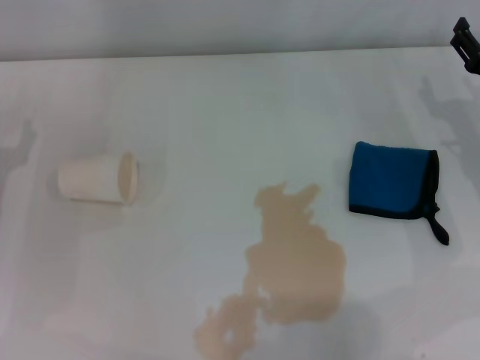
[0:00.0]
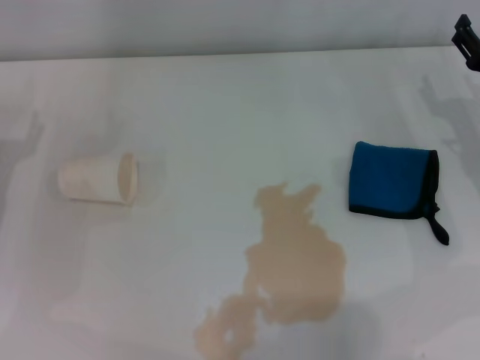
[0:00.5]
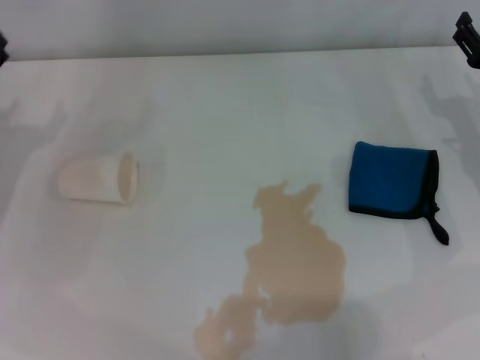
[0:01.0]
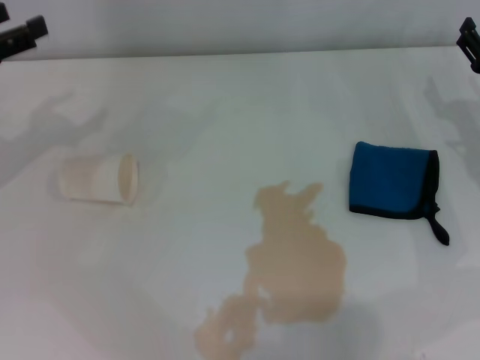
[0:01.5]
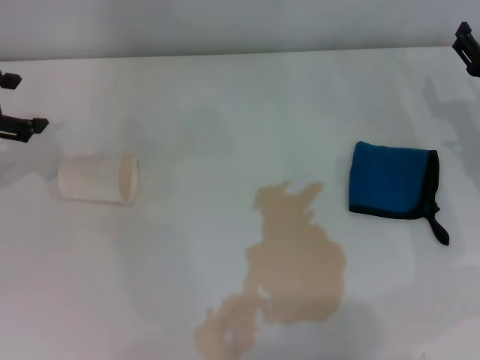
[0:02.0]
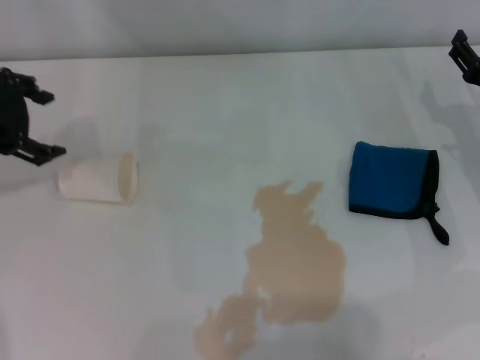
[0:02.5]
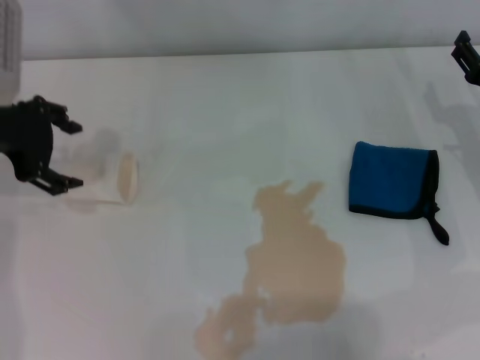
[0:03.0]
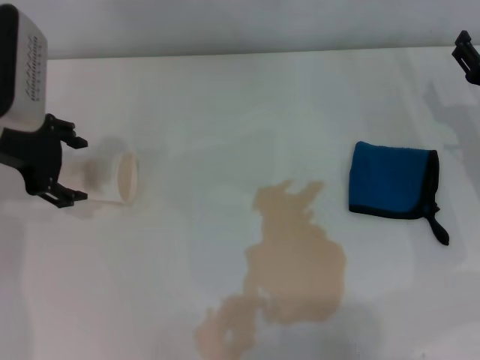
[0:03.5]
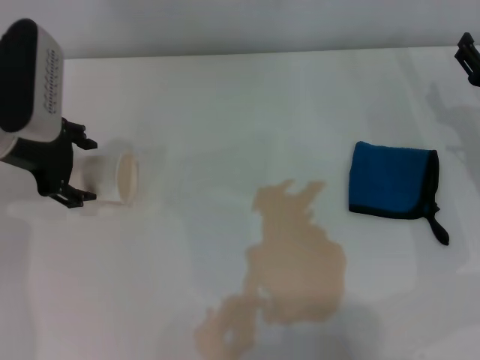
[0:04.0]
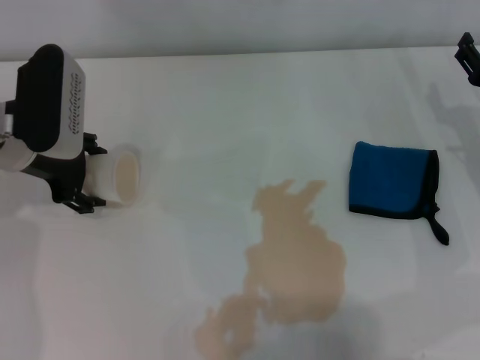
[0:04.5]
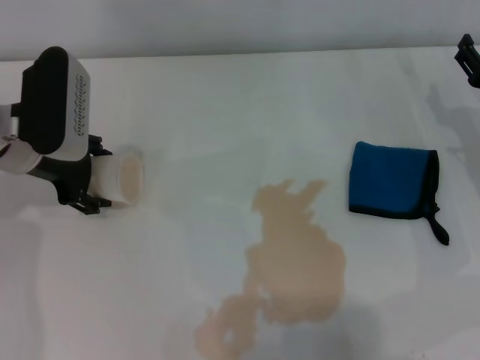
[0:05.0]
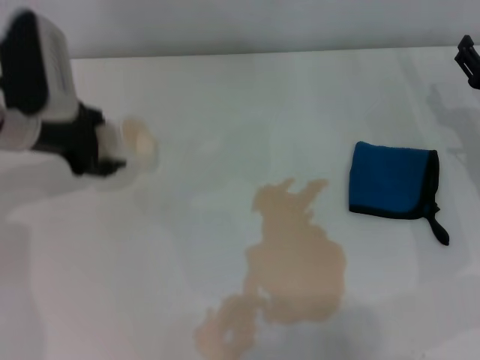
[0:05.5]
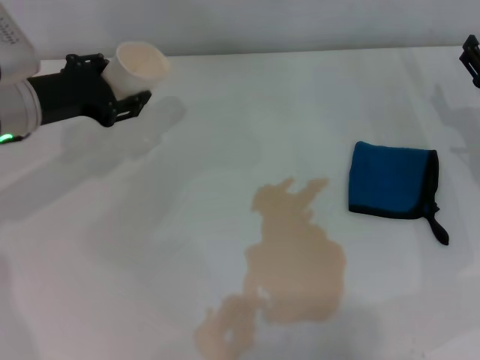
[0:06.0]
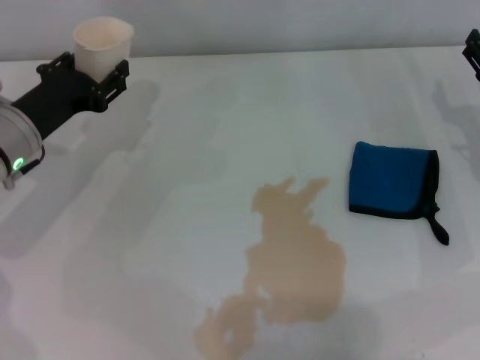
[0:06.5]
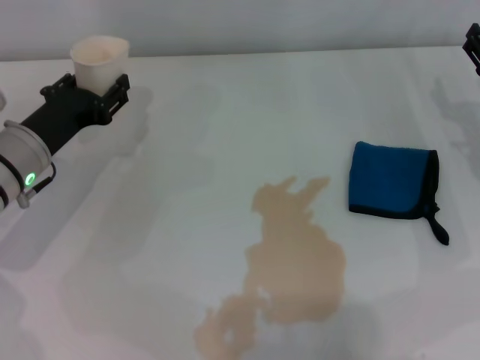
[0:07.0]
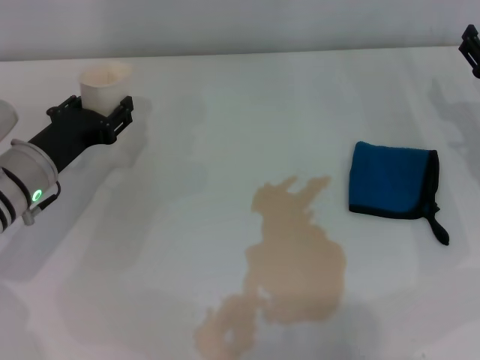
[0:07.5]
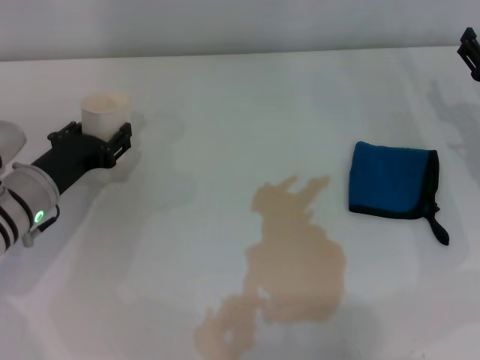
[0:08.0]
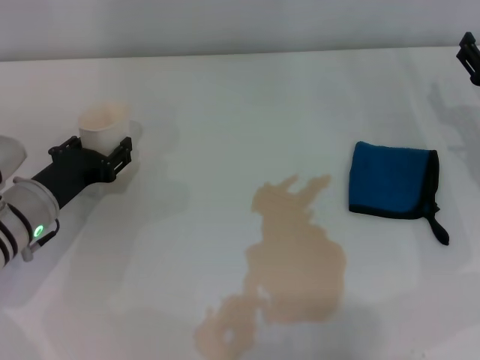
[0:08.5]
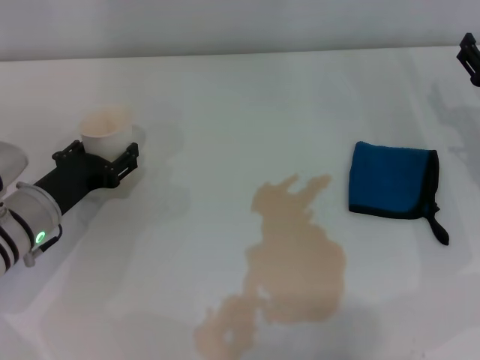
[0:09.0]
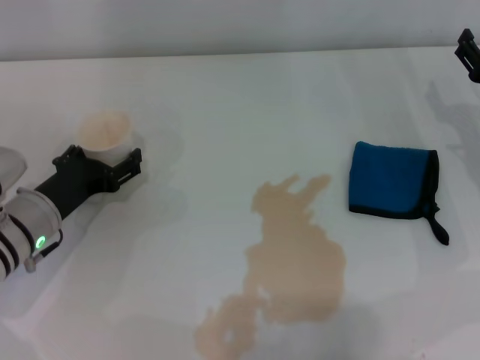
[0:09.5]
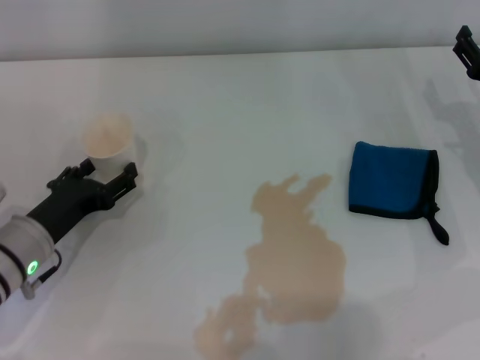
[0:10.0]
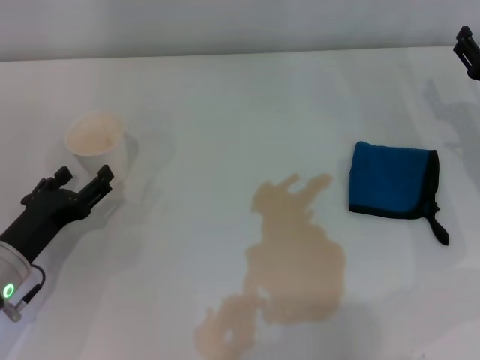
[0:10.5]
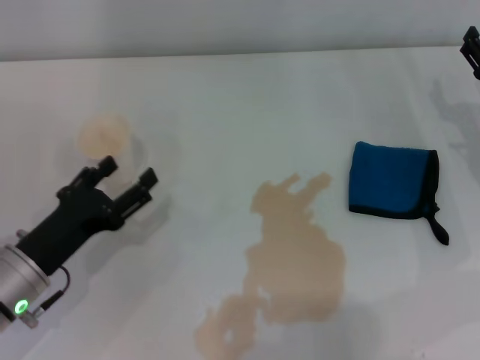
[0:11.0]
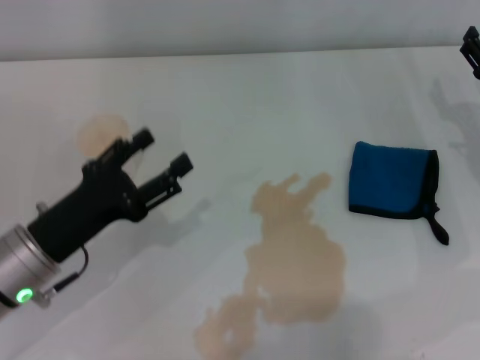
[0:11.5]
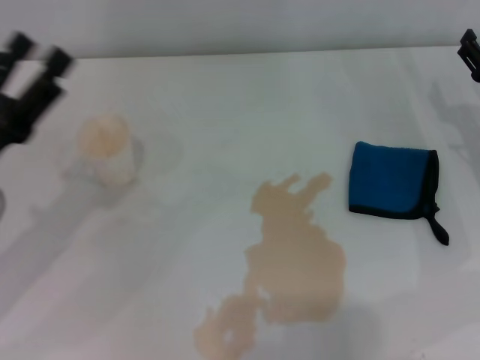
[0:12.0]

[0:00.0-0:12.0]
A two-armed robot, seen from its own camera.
Step, 0:00.0 to 0:05.0: Grasp the paper cup with the left gripper.
Step, 0:05.5 to 0:09.5: Stand the paper cup upright with the left gripper.
0:00.0 to 0:02.0: The left gripper travels upward and forward by about 15 cm.
0:02.0 to 0:04.0: The left gripper travels to the right by roughly 10 cm.
0:04.0 to 0:06.0: The left gripper closes up.
0:06.0 to 0:08.0: The left gripper is displaced downward and backward by some 10 cm.
0:08.0 to 0:10.0: The left gripper shifts by some 5 cm, and opens up.
0:10.0 to 0:12.0: The left gripper is displaced upward by about 10 cm.

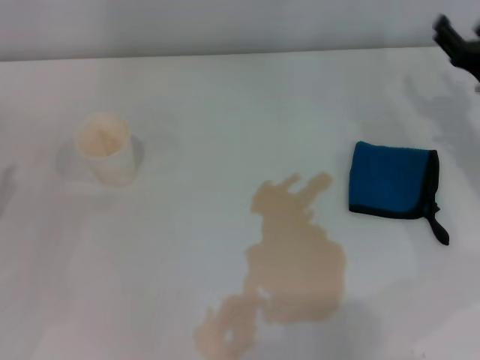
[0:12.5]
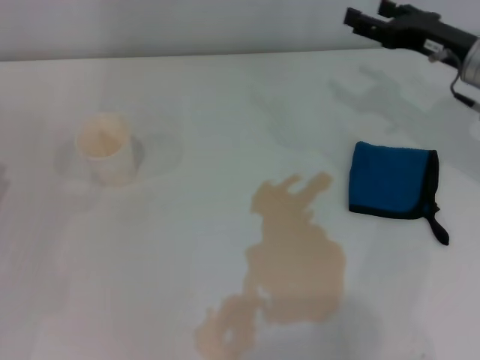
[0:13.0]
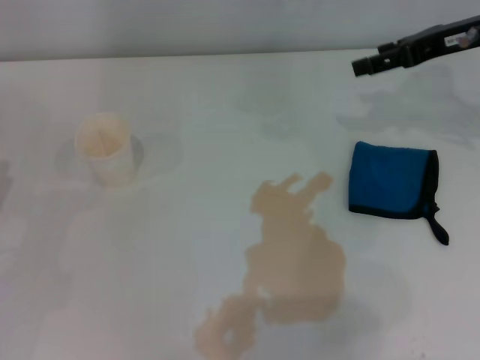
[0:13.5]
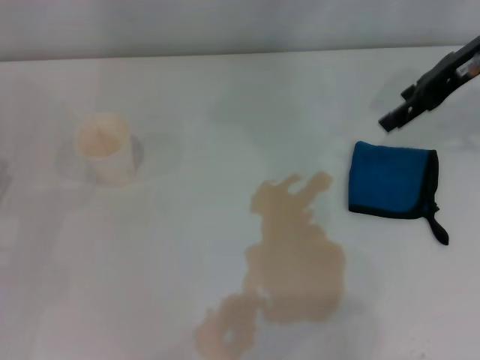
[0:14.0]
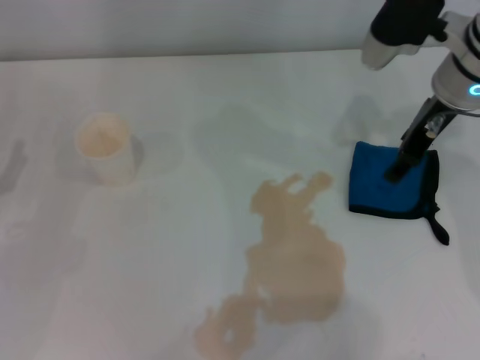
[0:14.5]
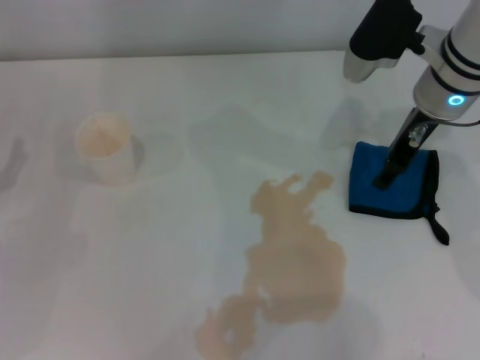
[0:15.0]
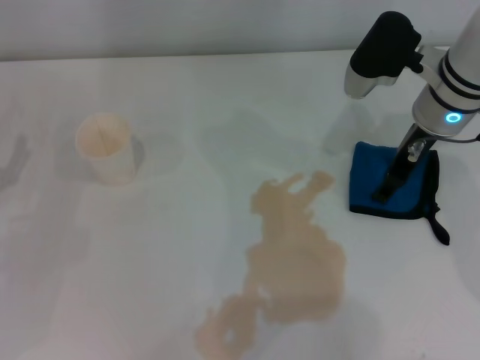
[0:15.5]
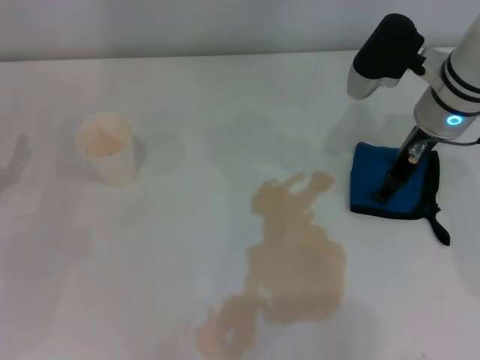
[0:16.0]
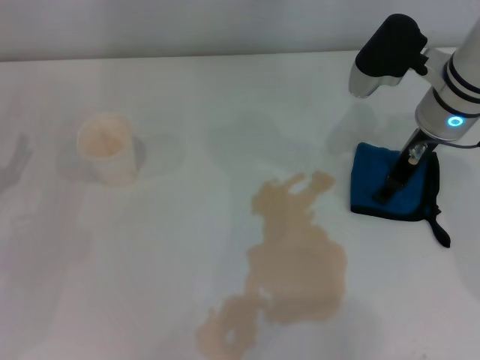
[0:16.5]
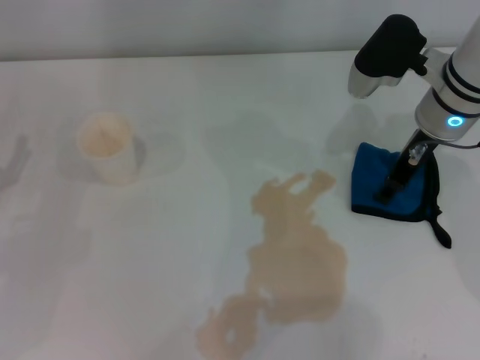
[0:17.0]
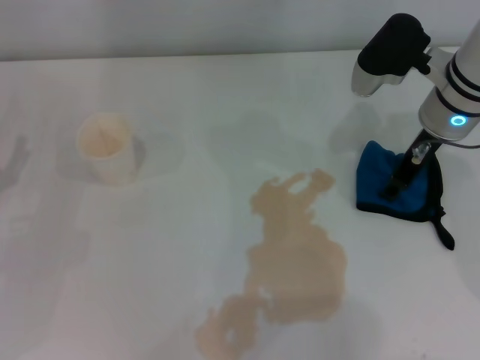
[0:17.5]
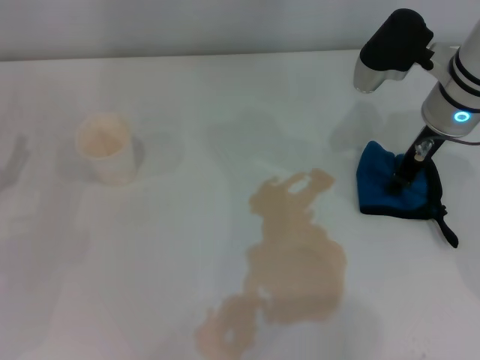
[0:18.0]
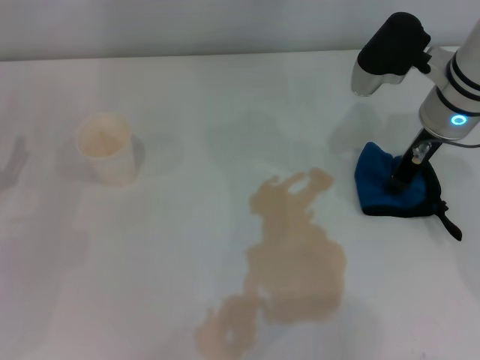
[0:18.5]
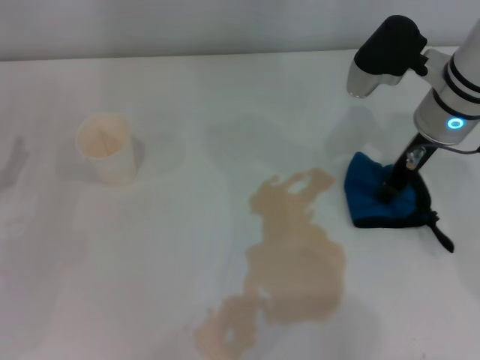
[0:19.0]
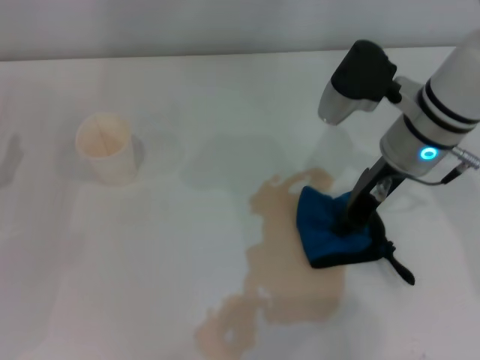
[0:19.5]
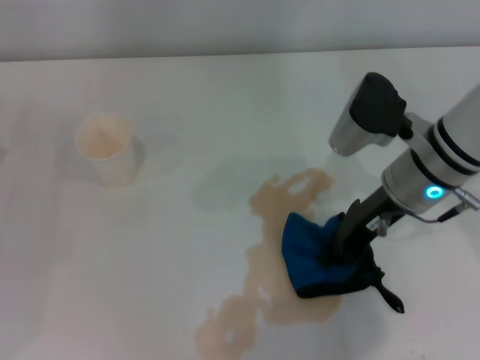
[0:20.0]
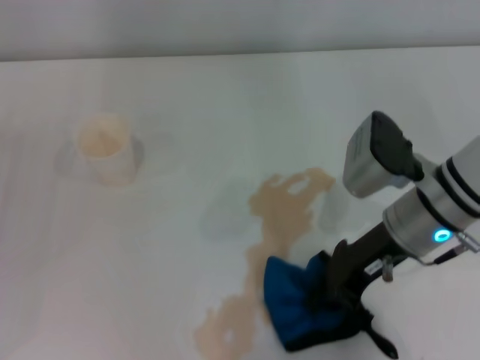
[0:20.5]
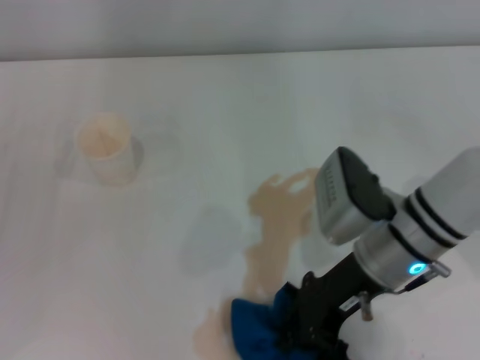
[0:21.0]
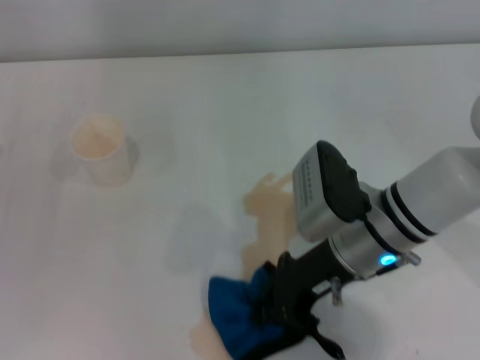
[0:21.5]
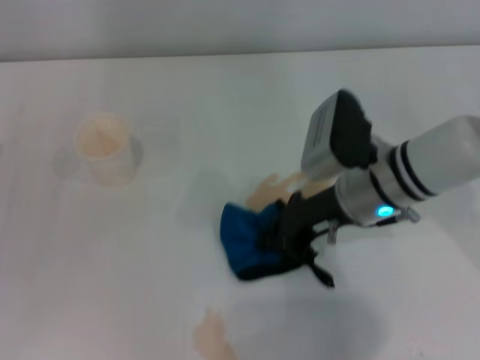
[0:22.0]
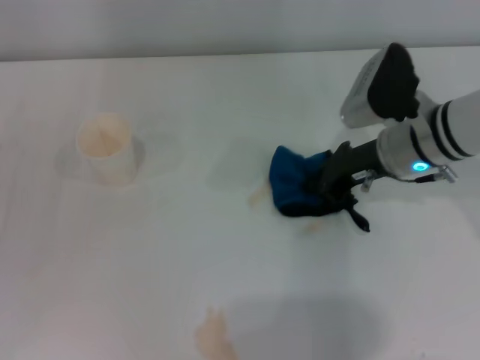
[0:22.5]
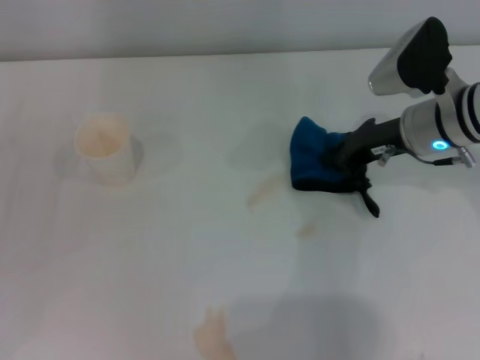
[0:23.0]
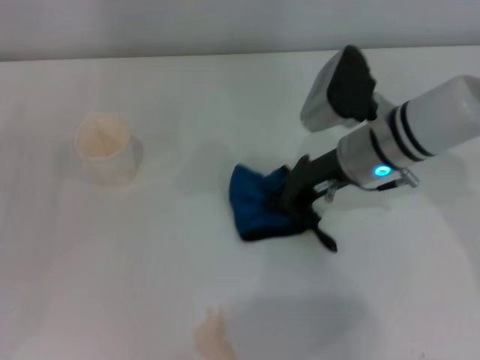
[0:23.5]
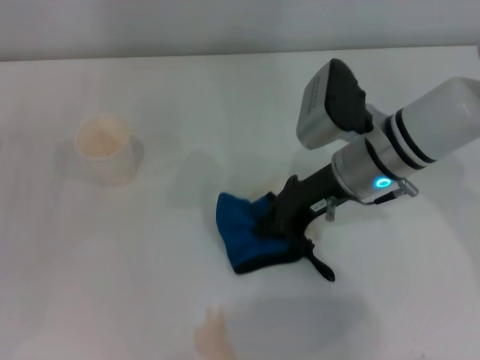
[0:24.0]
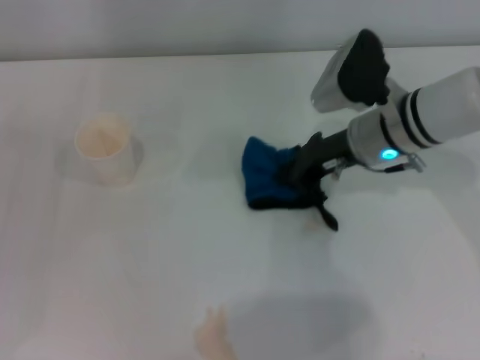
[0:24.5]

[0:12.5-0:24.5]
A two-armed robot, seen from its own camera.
Step, 0:12.5 to 0:18.5: Grasp the rag with the right gripper.
0:12.5 to 0:14.5: The right gripper goes some 15 cm upward, to the left and forward.
0:14.5 to 0:16.5: The grippers make only small movements.
0:16.5 to 0:18.5: The right gripper closes up.
0:18.5 to 0:20.5: The right gripper goes some 10 cm backward.
0:20.5 to 0:22.5: The right gripper goes approximately 5 cm forward.
0:22.5 to 0:24.5: There are only small adjustments of the grippers.

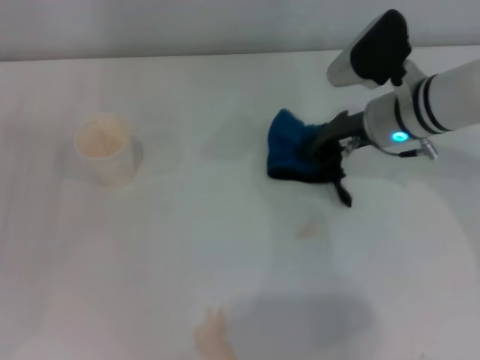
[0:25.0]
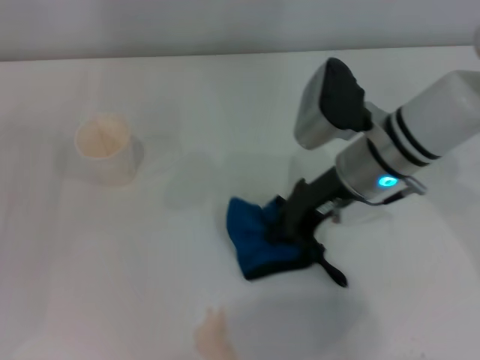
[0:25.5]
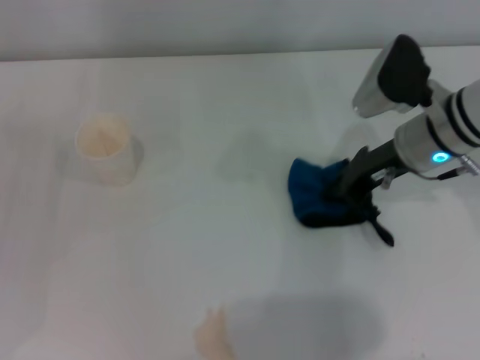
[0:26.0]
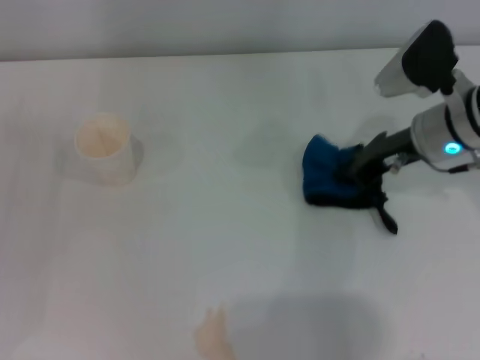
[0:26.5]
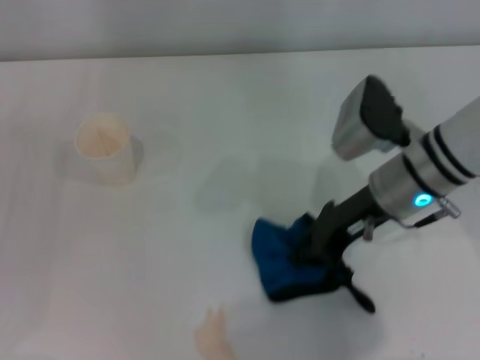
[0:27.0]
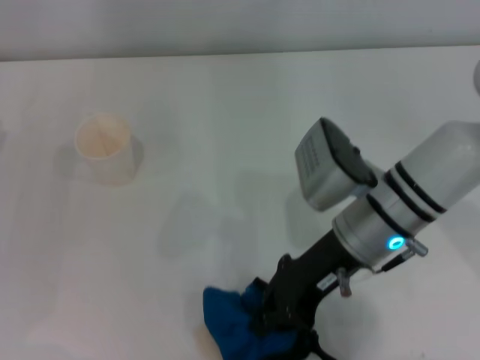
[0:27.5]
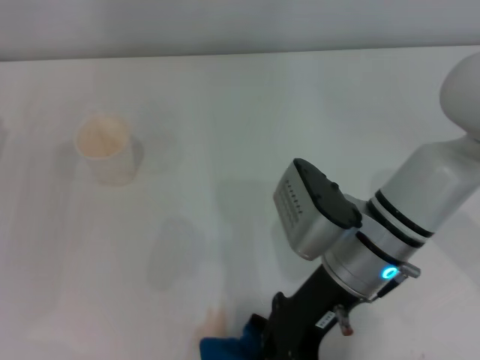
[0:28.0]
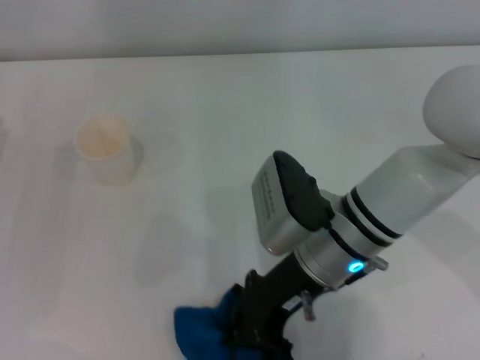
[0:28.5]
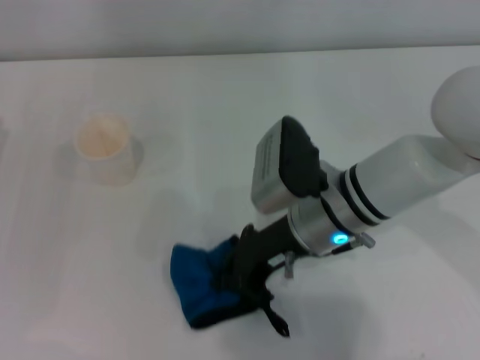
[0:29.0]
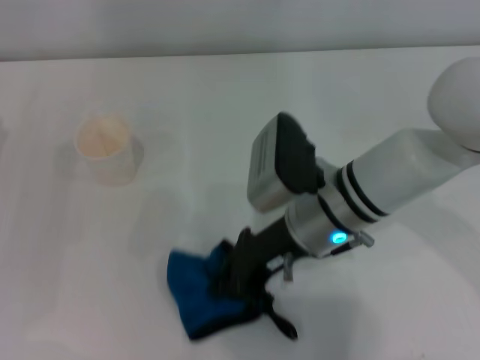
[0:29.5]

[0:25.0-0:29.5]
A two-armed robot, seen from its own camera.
0:25.0 to 0:27.0: The right gripper moves left and right over about 10 cm, changing direction 2 times.
0:27.0 to 0:29.5: The right gripper shifts some 10 cm to the left.
